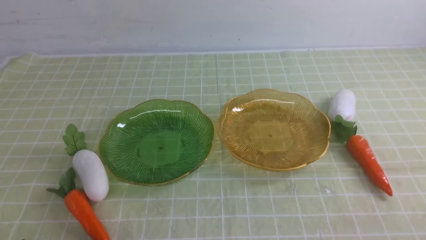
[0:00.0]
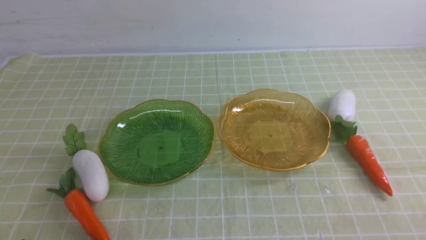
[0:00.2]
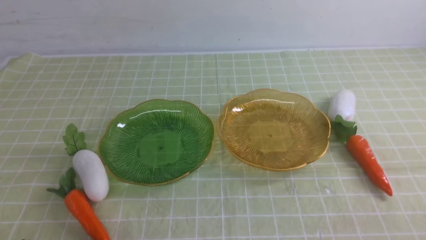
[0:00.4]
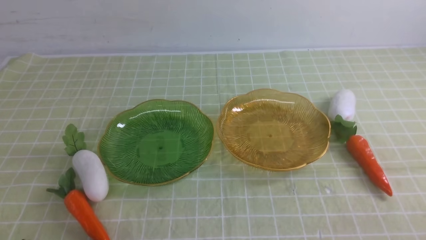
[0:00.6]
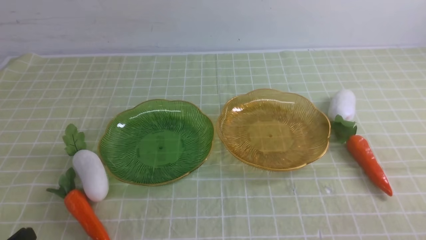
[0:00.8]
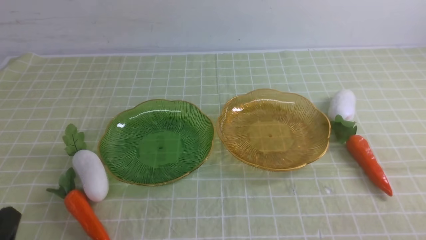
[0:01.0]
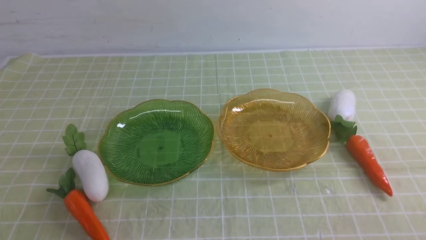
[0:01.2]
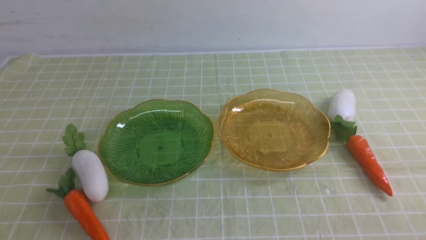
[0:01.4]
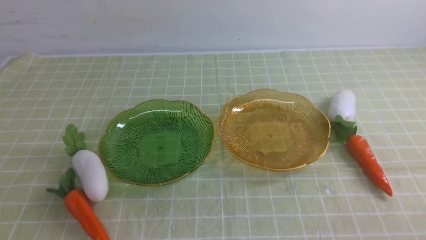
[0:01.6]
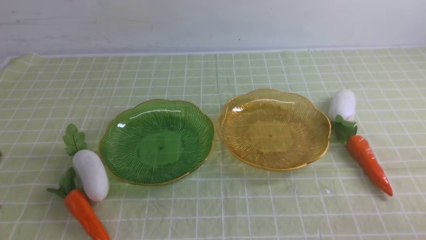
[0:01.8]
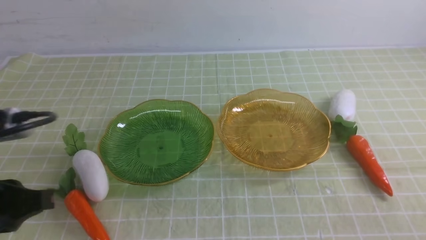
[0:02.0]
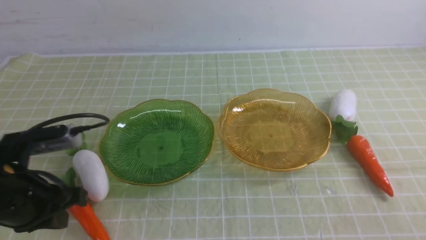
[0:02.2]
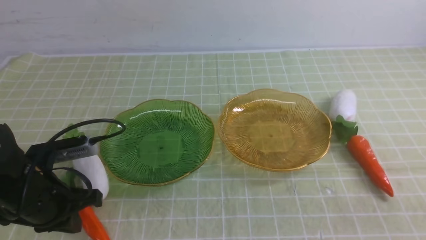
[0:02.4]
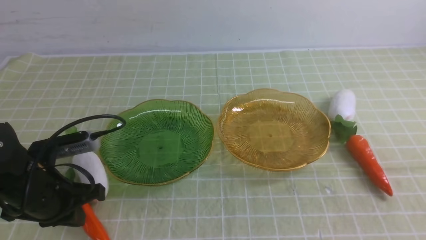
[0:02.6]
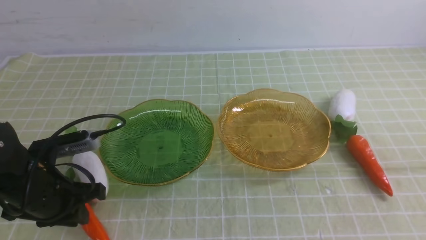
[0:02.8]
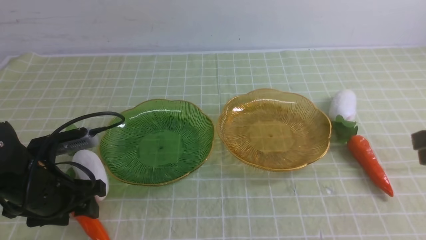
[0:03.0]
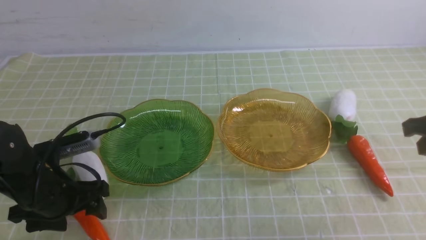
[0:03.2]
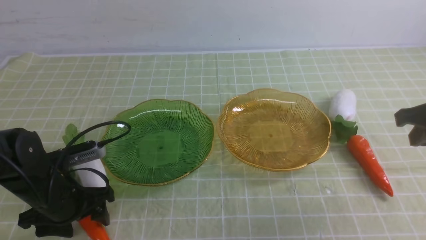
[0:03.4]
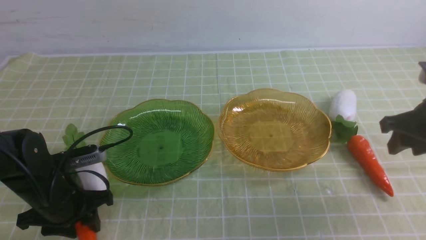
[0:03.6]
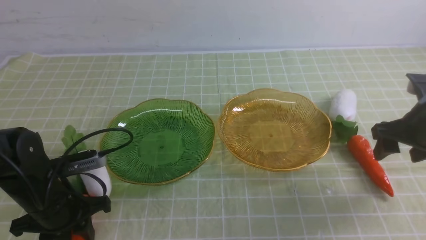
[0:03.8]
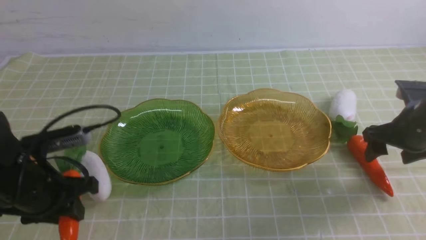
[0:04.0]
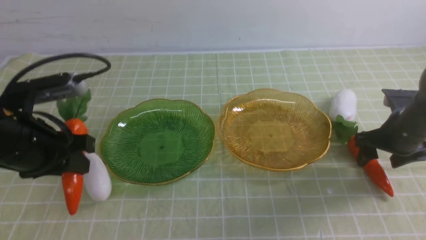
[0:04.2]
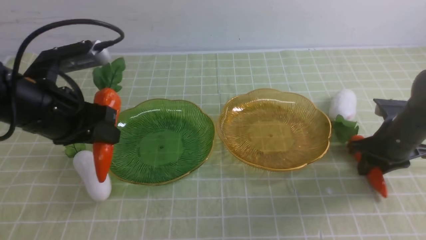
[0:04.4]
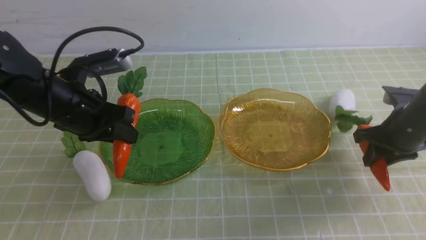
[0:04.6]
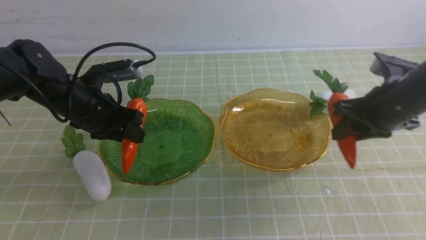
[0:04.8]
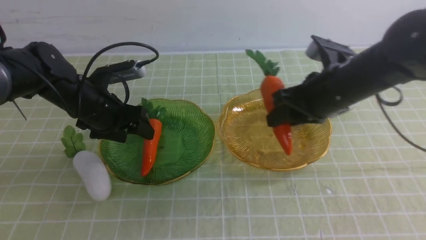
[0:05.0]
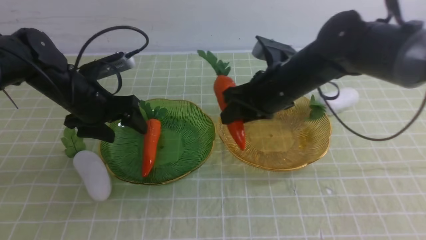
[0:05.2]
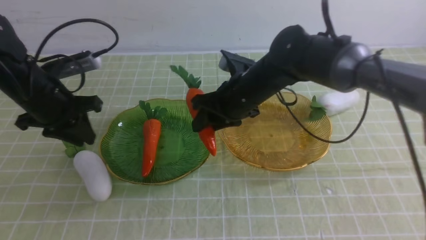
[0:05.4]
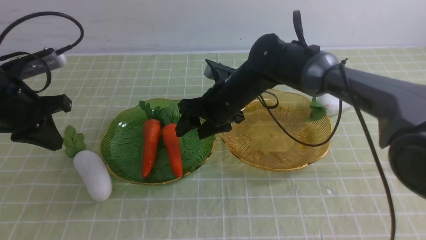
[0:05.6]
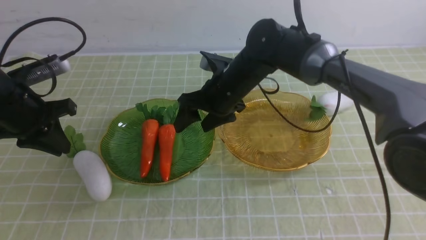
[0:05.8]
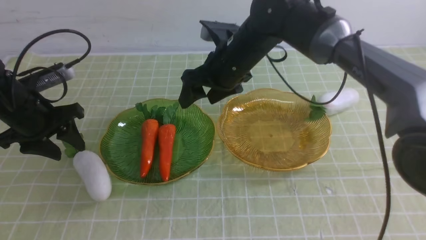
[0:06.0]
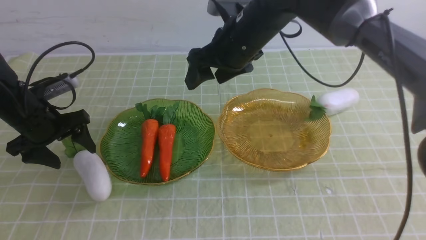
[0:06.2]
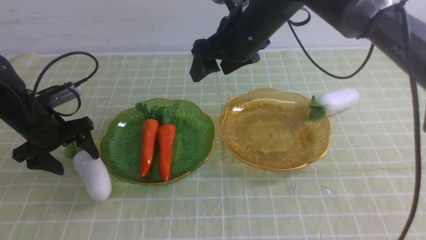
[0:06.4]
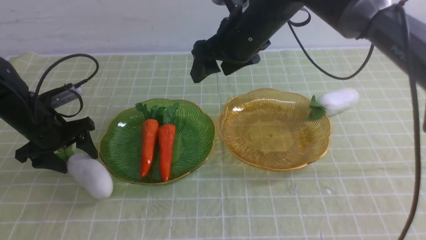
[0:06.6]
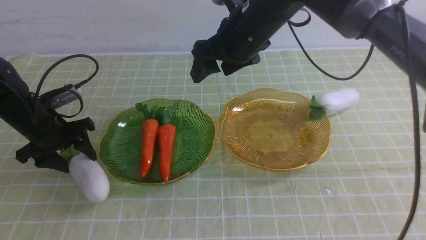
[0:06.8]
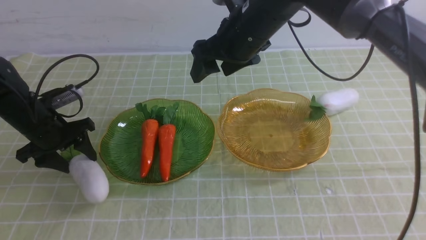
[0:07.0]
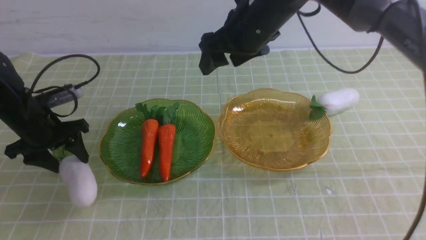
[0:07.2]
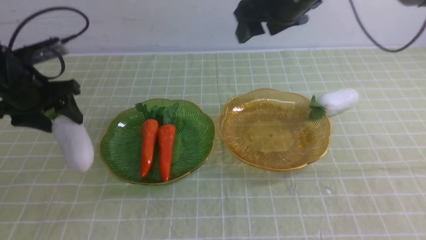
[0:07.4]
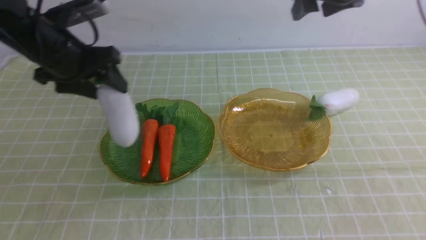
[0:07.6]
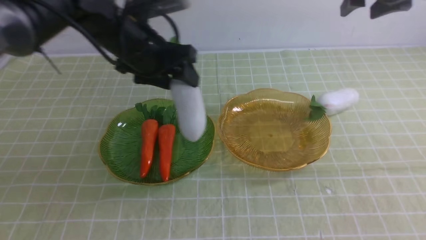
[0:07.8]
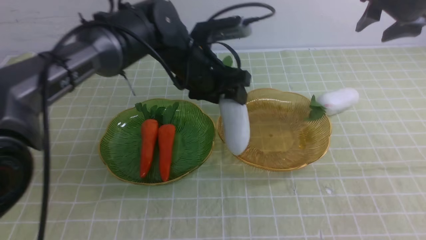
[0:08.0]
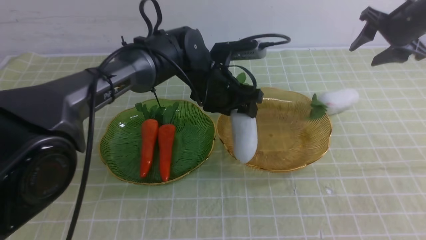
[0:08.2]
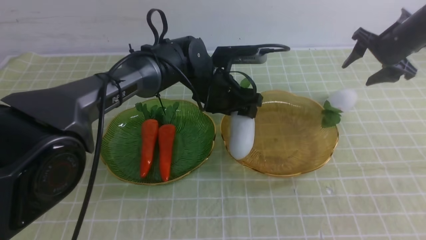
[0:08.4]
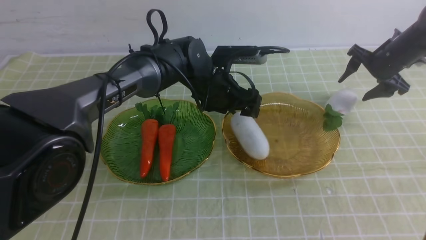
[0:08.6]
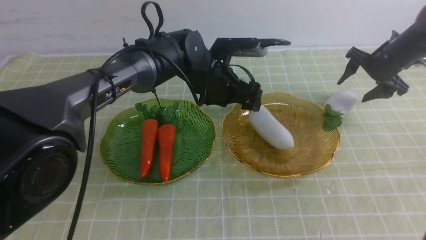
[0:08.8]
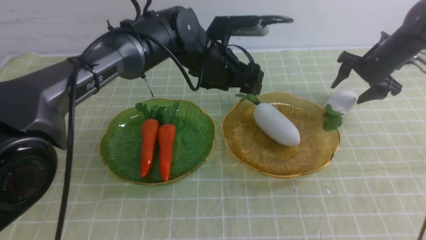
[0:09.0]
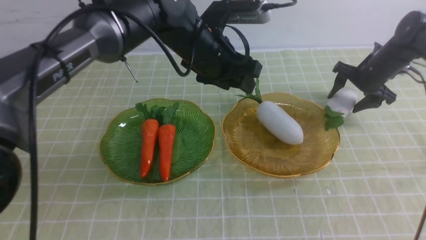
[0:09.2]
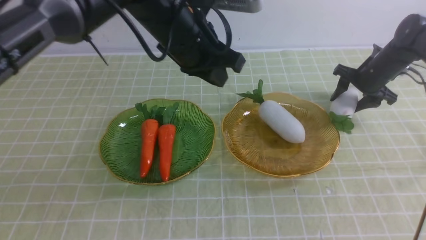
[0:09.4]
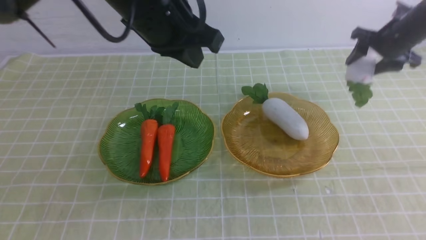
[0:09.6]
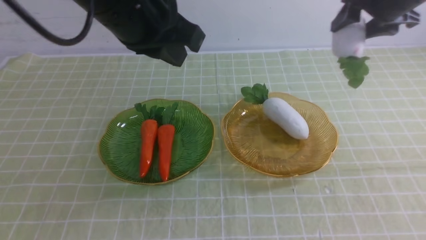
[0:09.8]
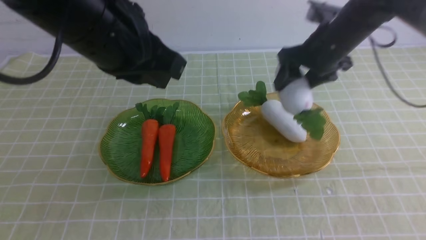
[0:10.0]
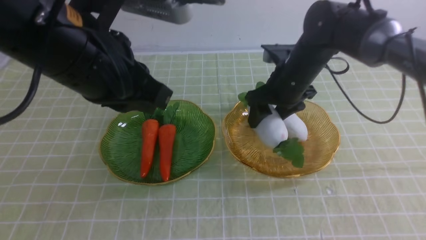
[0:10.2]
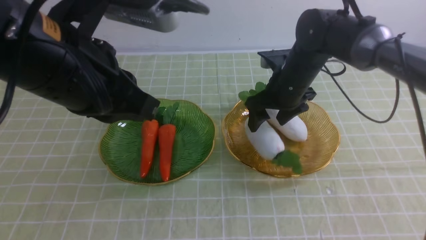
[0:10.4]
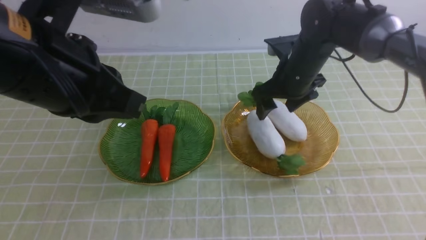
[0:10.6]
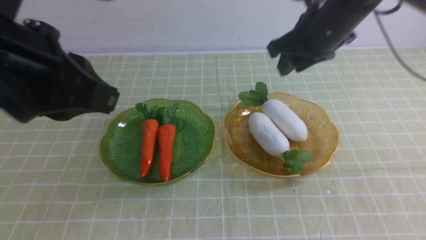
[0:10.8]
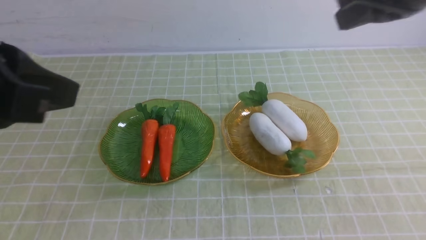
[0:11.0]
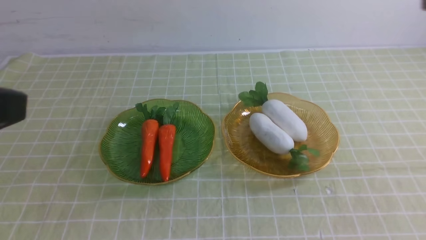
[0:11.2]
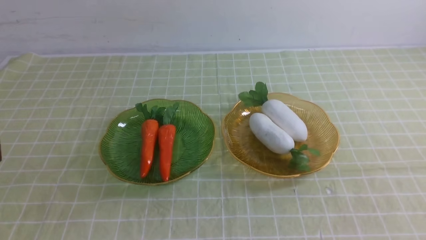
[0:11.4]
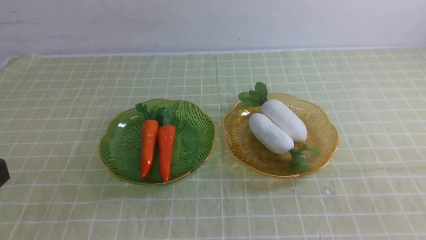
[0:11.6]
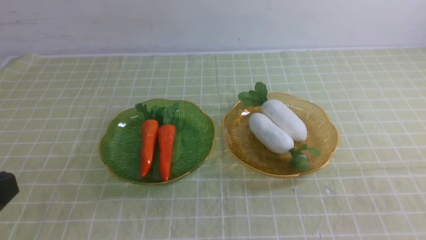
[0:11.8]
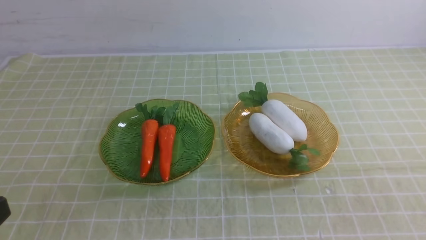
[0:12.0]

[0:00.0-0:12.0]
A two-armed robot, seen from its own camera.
Step, 0:00.0 to 0:05.4: use the left arm to grab a carrot and put it into the left plate.
Step, 0:05.6 to 0:09.2: use the left arm to grab a radish and put it into the right plate.
Step, 0:09.4 to 0:11.2: use the right arm to grab a radish and put it into the right plate.
0:01.6 to 0:03.0: The left gripper travels forward and downward by approximately 20 cm, and opens up.
0:03.0 to 0:04.4: The left gripper heads upward, covering about 10 cm. The right gripper travels forward and downward by some 20 cm, and opens.
0:04.4 to 0:06.0: The left gripper goes roughly 10 cm to the left, forward and downward; the right gripper heads to the left, covering roughly 25 cm, and opens its fingers.
0:06.0 to 0:07.6: The left gripper moves to the right and upward, approximately 10 cm. The right gripper is displaced to the right and upward by approximately 20 cm.
0:07.6 to 0:09.0: The left gripper moves to the right, about 20 cm, while the right gripper shifts approximately 25 cm downward, to the right and forward.
0:09.0 to 0:10.4: The left gripper travels backward, upward and to the left by some 25 cm, and closes. The right gripper is displaced to the left and backward by about 20 cm.
0:10.4 to 0:12.0: The left gripper travels backward, to the left and downward by approximately 25 cm. The right gripper shifts about 40 cm backward and to the right, and closes up.

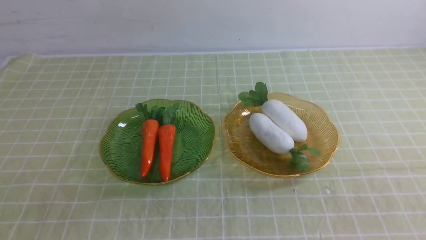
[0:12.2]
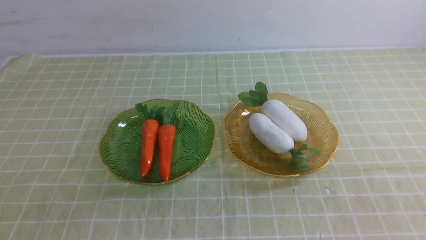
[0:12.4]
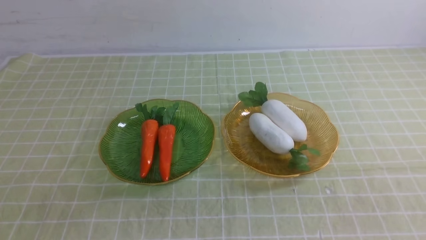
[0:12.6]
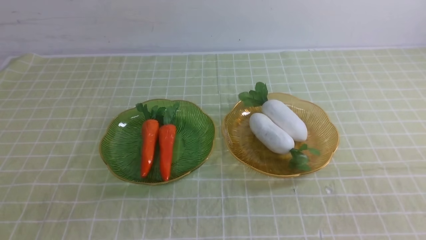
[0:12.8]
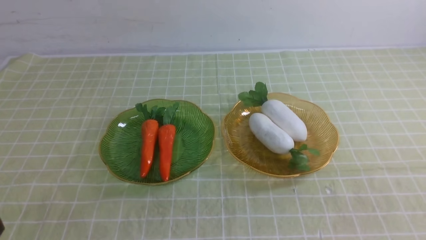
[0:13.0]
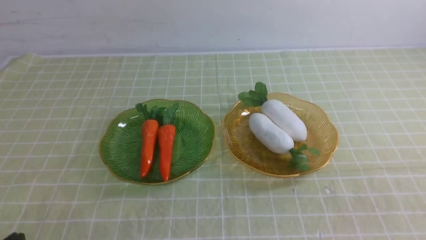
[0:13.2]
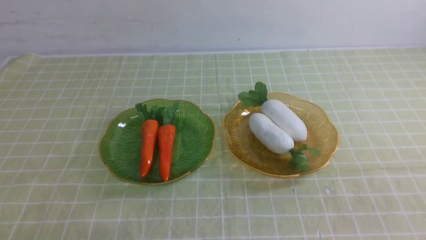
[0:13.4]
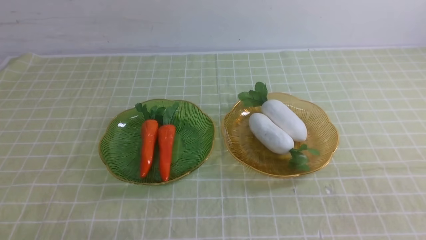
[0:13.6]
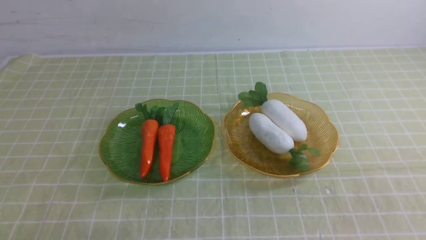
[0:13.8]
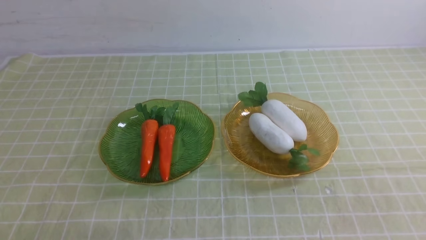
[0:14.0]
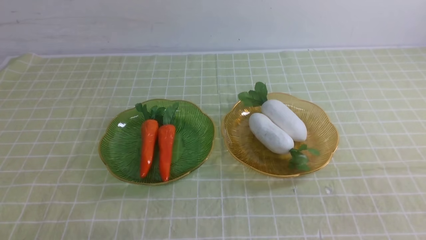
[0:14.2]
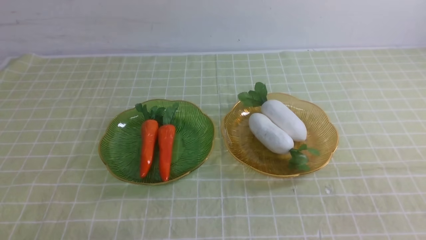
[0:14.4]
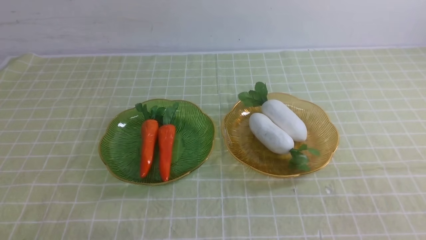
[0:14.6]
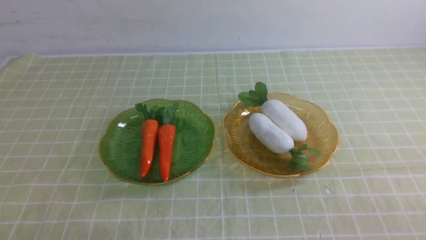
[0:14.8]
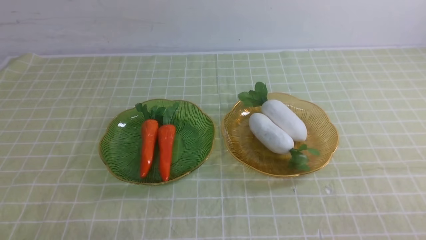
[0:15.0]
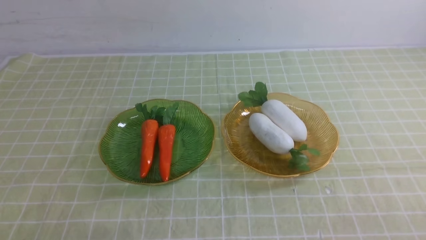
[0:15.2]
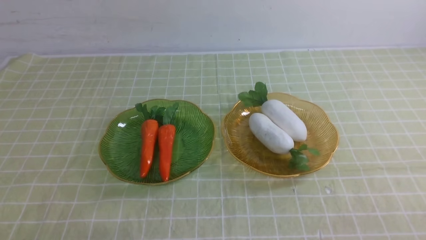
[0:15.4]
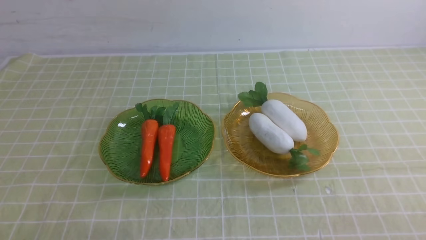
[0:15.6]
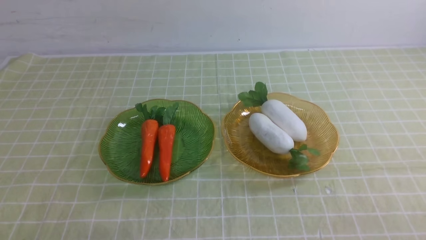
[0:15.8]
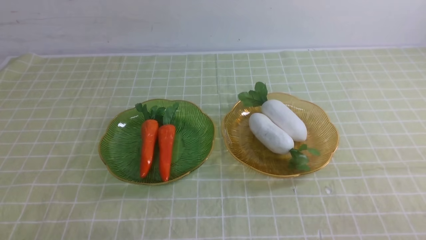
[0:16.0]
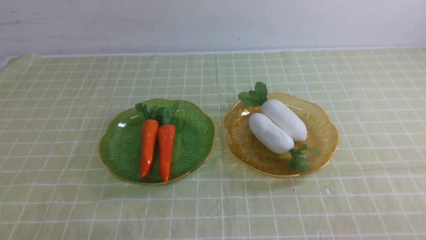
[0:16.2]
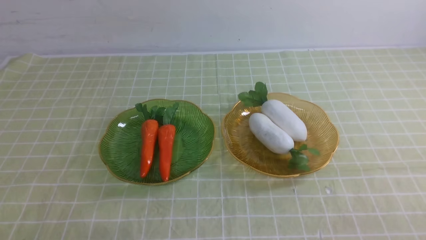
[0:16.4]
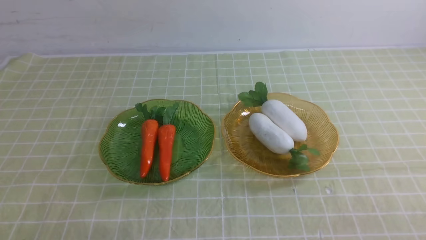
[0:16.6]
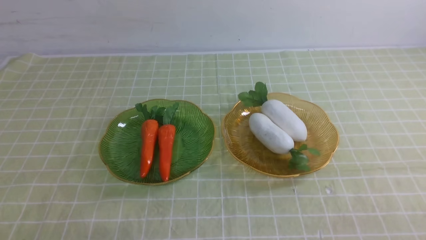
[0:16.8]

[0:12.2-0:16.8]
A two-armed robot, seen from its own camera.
0:15.2 to 0:16.8: Both grippers stay put.
